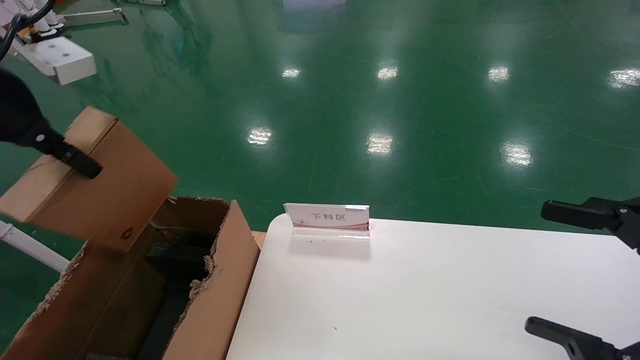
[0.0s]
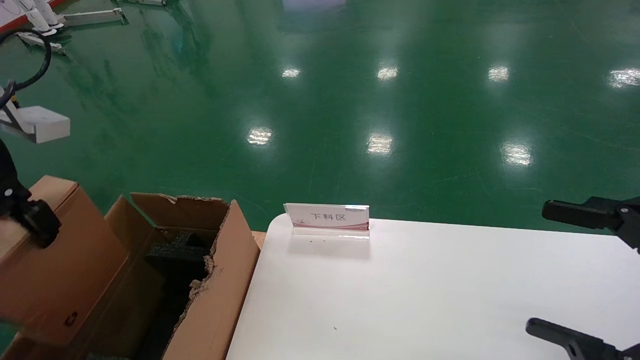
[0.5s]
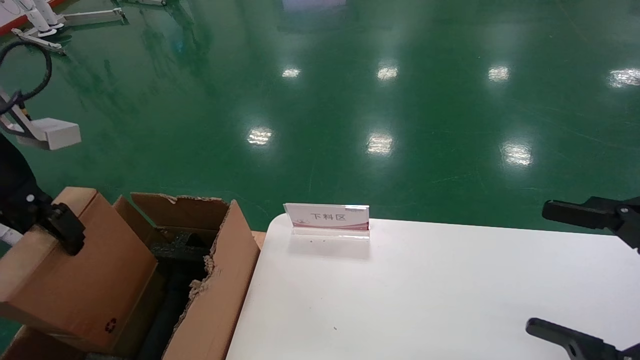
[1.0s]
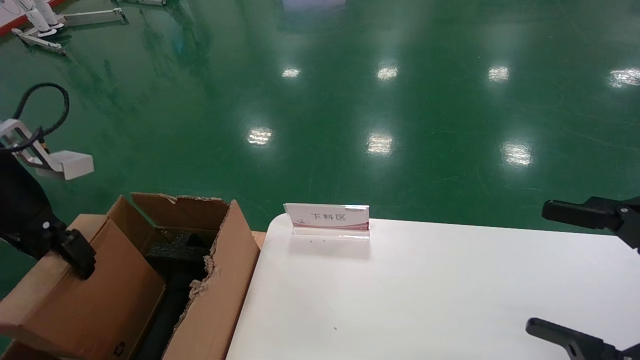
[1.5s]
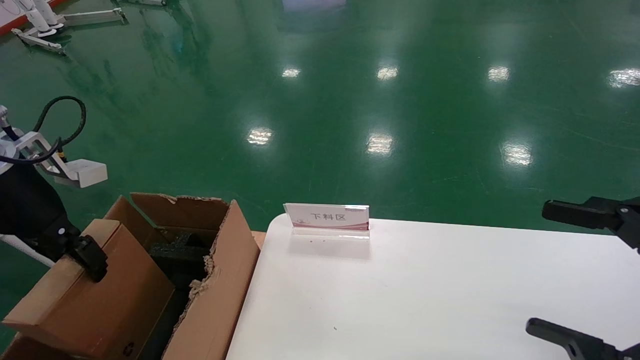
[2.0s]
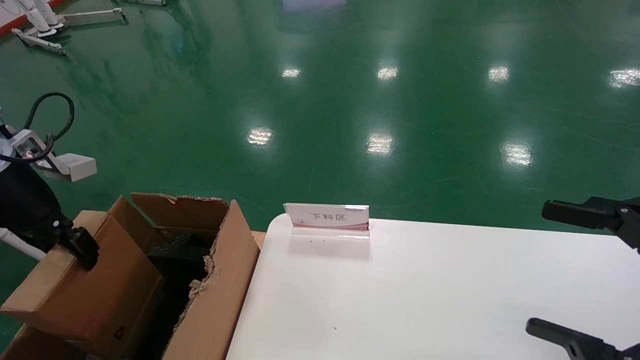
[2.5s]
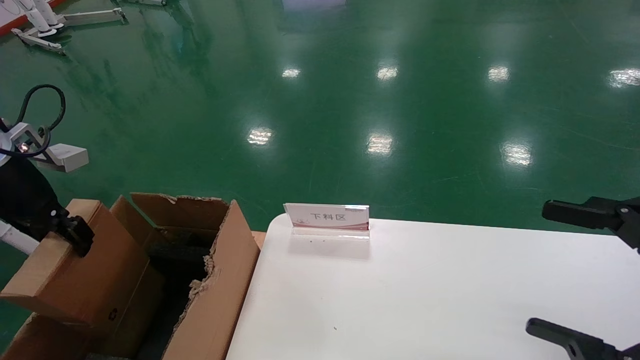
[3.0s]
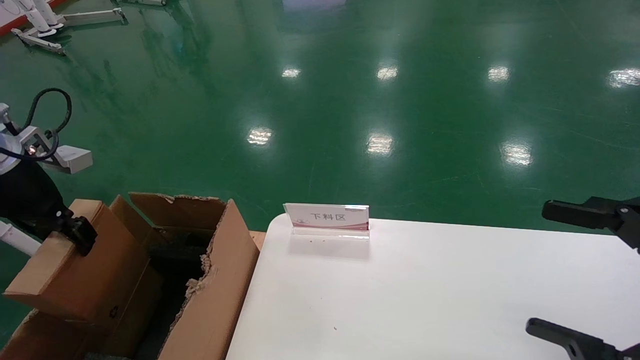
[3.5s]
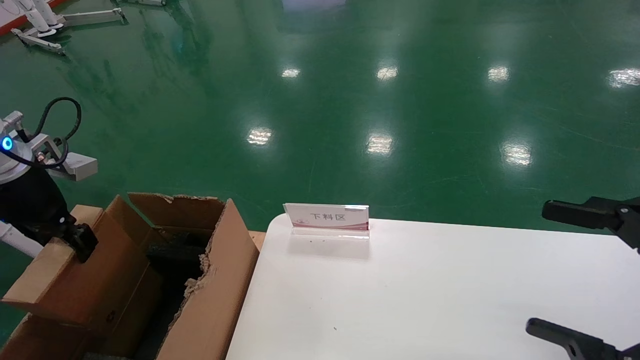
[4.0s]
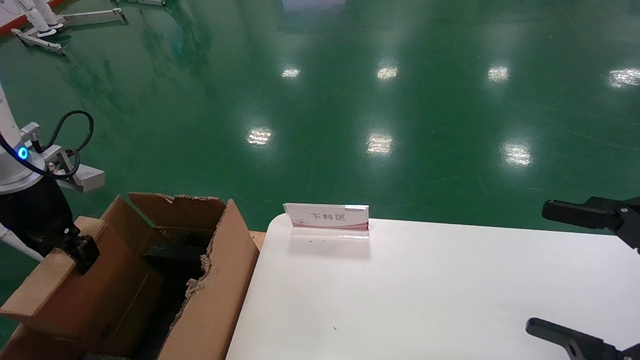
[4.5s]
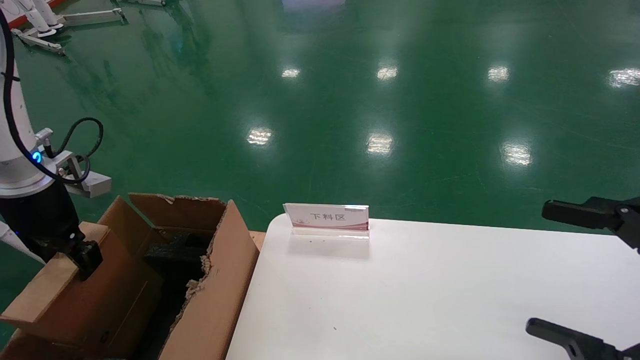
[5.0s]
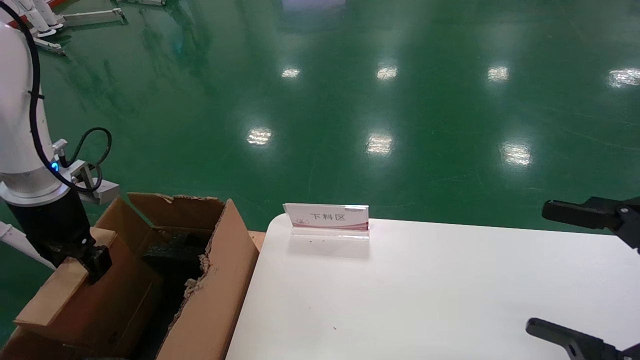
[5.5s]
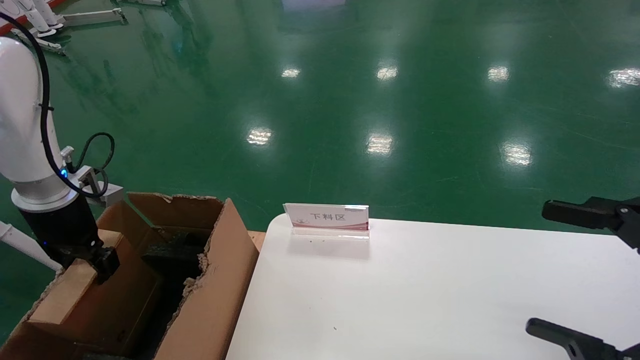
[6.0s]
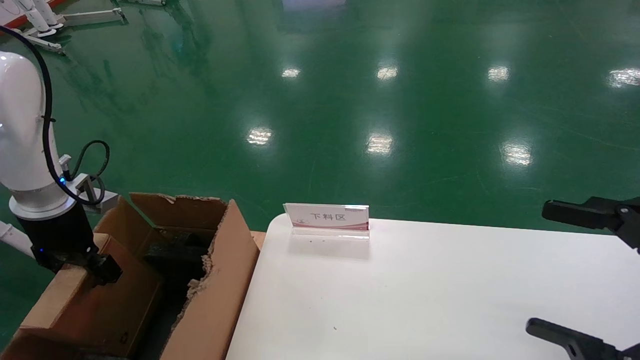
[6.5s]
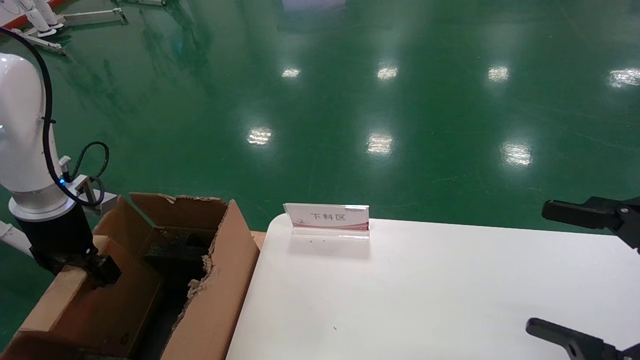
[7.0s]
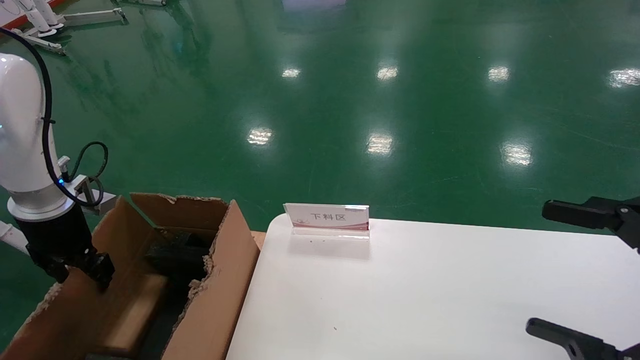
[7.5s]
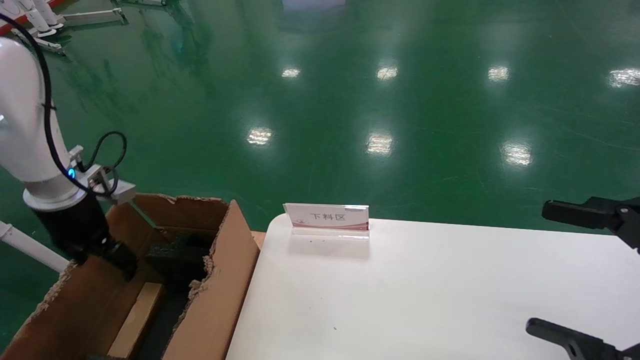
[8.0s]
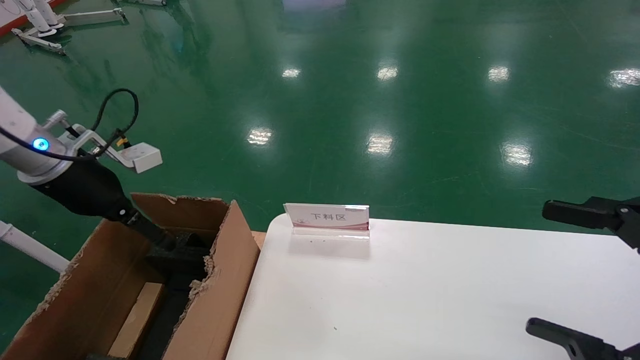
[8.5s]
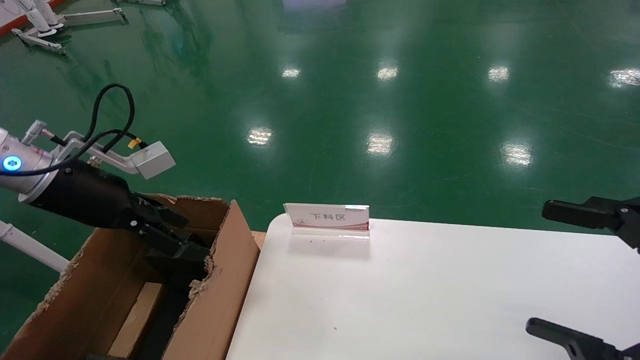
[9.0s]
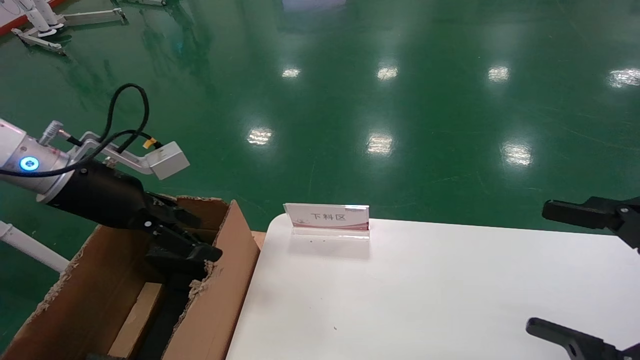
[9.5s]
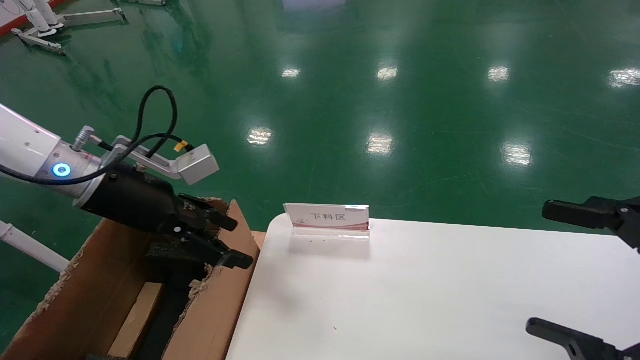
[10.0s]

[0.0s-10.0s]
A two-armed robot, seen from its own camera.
Task of the whole recording: pick up the small cardboard box and load it into the large cardboard box.
Step, 0.0s to 7.5s: Place the mouse and power cord box into the case.
0.0s to 2.0s: The left gripper travels downward and to the left by about 10 cm.
2.0s to 4.0s: The left gripper ends up about 5 cm from where it was.
4.0s to 6.0s: The left gripper moves downward, some 5 cm.
6.0s to 8.0s: The left gripper opens up.
8.0s to 10.0s: The left gripper shifts approximately 10 cm to the right.
